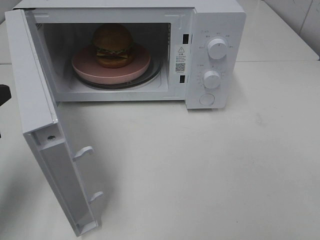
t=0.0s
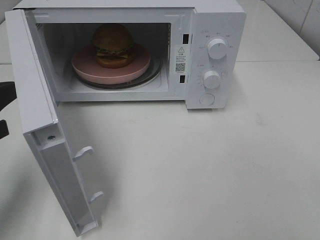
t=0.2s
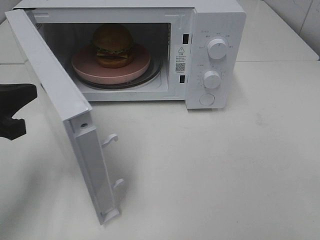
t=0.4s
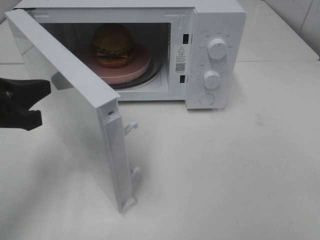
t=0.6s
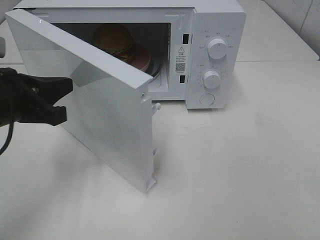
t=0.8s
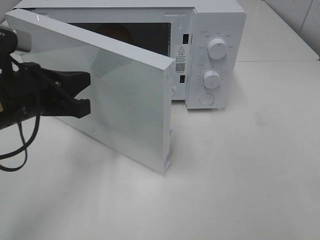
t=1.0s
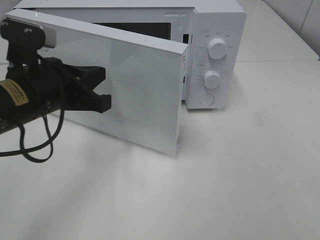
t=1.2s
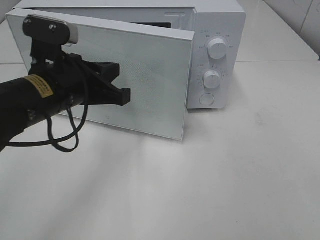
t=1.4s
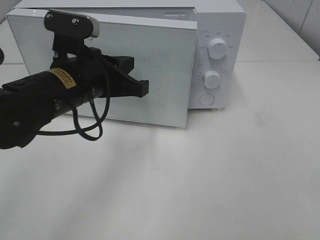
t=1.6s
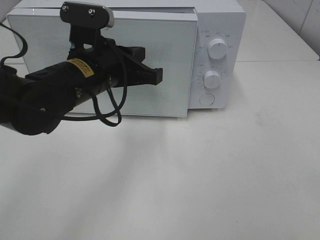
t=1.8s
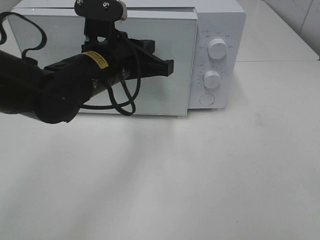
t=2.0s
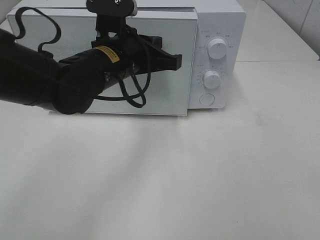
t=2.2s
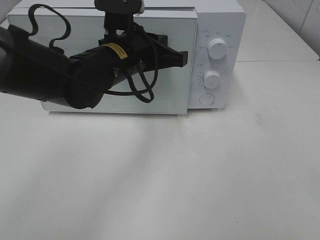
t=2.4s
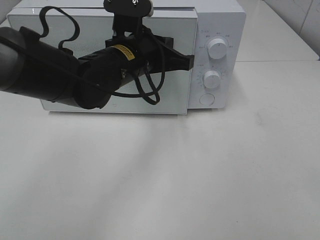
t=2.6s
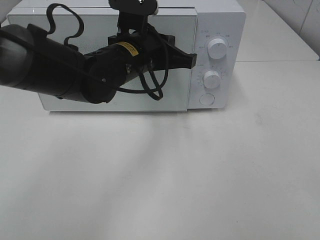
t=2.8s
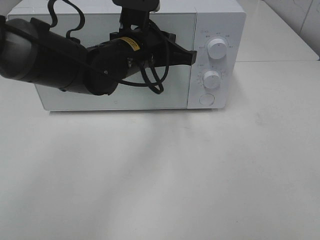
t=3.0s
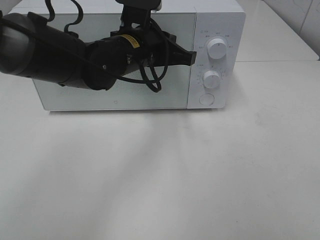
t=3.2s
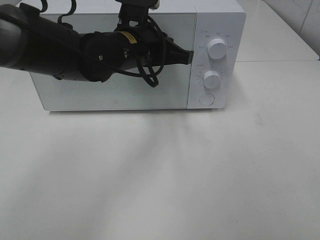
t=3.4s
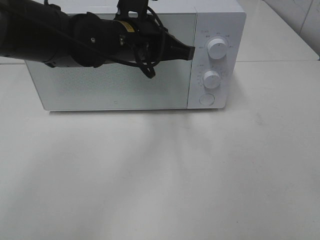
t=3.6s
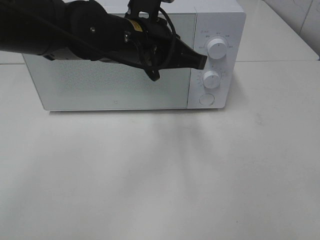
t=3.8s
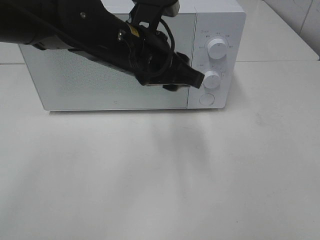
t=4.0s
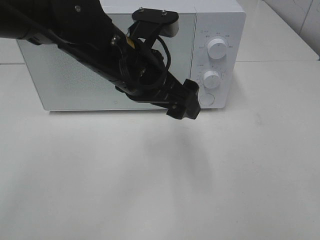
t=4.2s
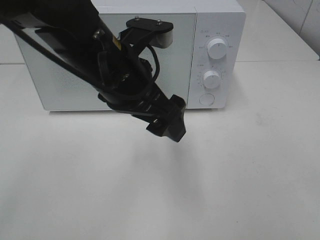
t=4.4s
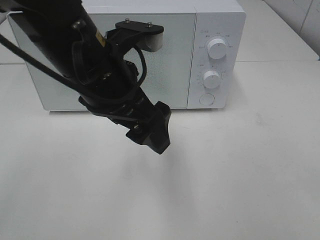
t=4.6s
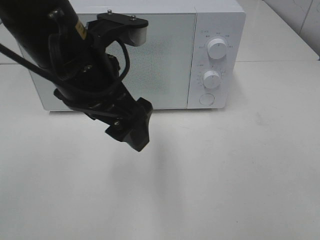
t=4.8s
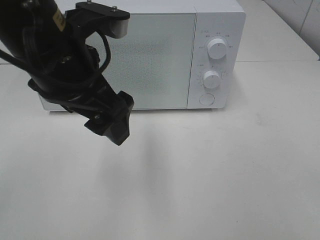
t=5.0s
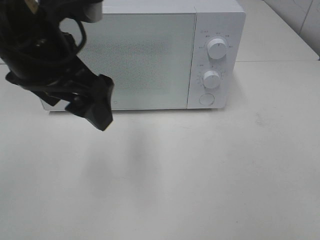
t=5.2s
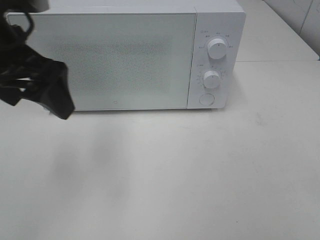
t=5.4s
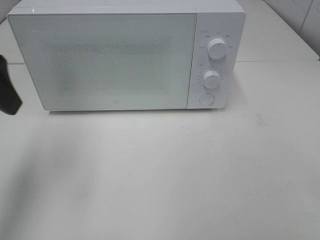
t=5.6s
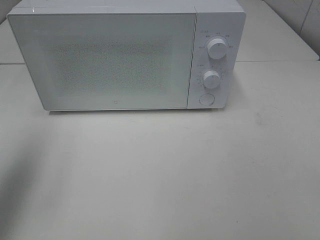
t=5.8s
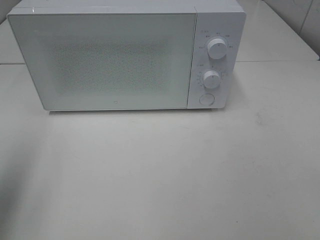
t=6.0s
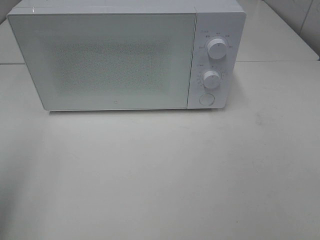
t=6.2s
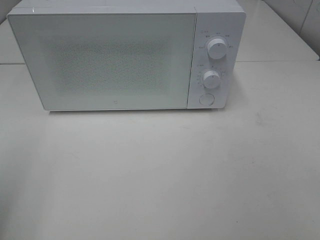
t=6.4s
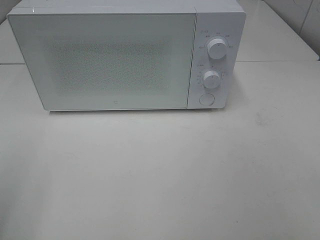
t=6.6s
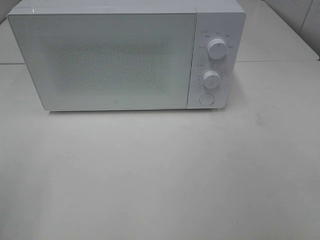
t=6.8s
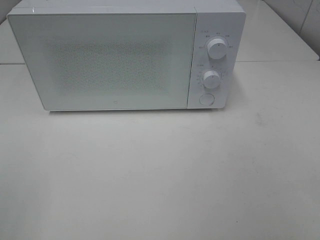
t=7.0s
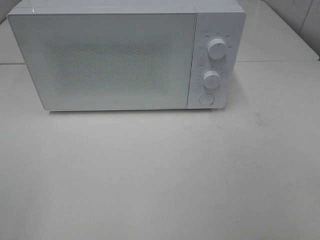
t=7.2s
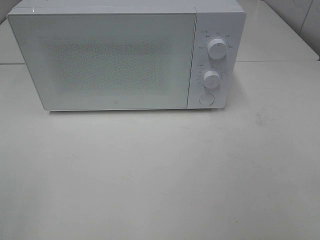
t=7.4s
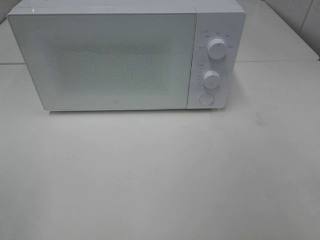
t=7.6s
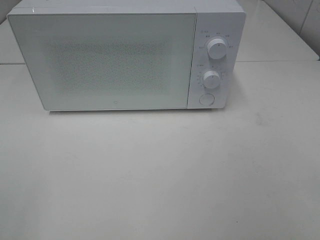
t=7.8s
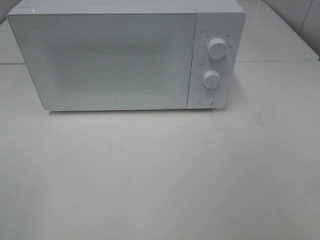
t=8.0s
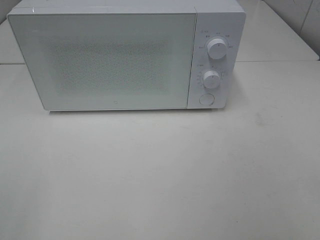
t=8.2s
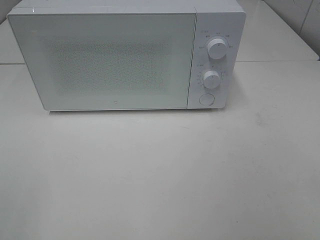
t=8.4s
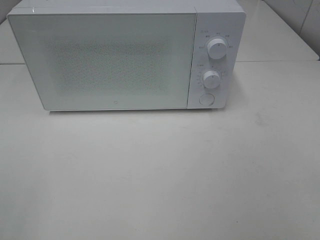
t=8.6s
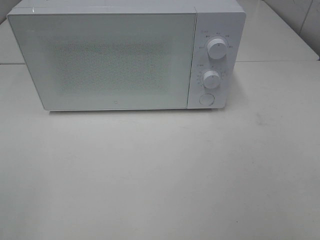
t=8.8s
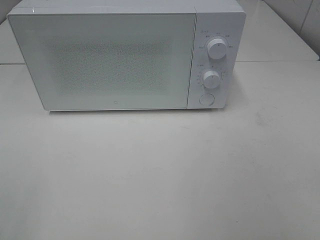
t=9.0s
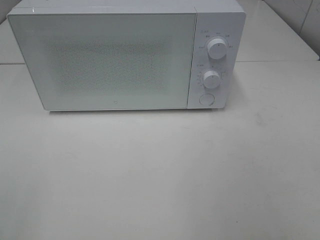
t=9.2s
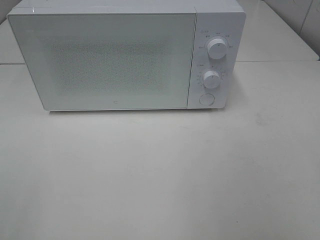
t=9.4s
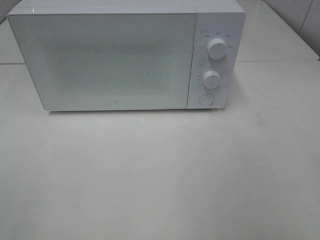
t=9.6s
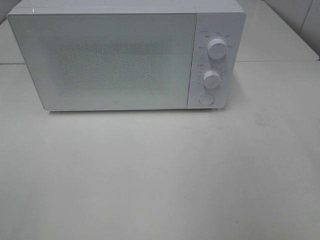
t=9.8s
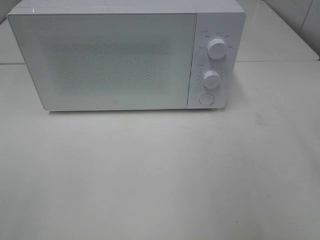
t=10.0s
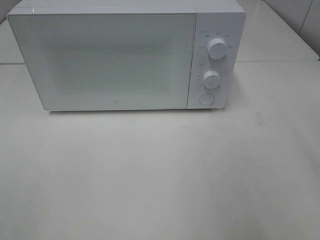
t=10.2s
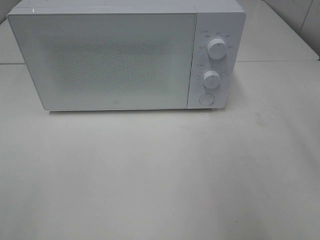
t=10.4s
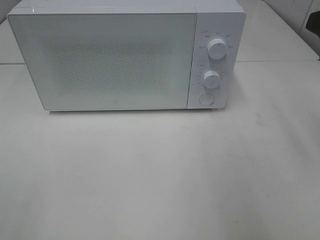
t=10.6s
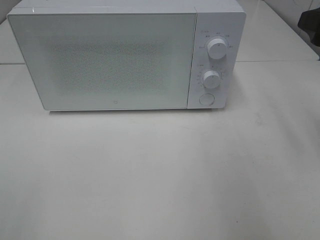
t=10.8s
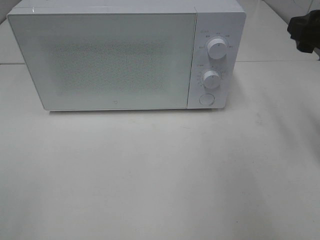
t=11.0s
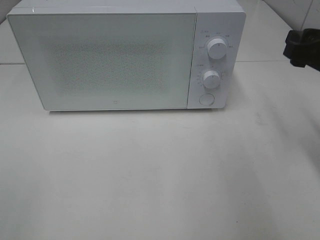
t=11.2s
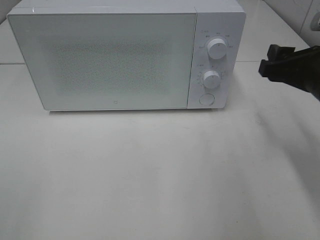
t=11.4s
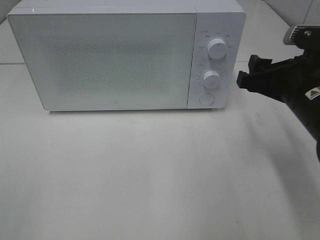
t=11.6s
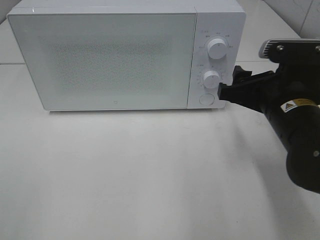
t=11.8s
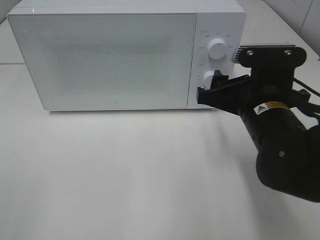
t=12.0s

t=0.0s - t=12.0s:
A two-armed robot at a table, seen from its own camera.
Task of the whole recording: Heat the burger.
Step, t=0.0s - t=3.6s: Left hand: close the microwave door.
t=0.0s - t=1.6s: The left gripper heads to the right and forward, covering approximately 20 cm.
t=1.6s - t=3.0s: The left gripper moves forward and to the right, approximately 10 cm.
t=3.0s - t=4.4s: The left gripper travels backward by approximately 10 cm, and opens up.
t=4.4s - t=6.0s: The left gripper goes about 25 cm to the left.
t=6.0s - t=7.6s: The left gripper heads backward, covering approximately 15 cm.
t=10.4s - t=12.0s: The right gripper moves downward and to the left, some 20 cm.

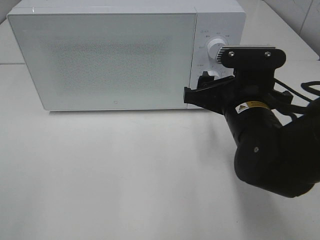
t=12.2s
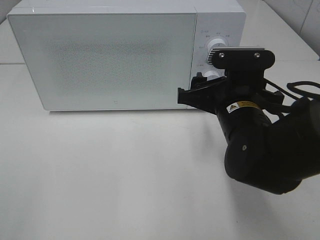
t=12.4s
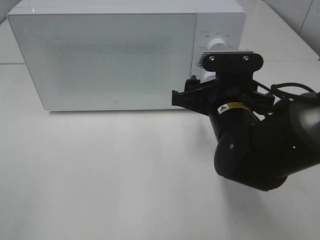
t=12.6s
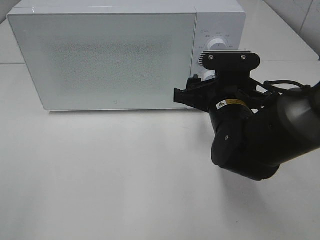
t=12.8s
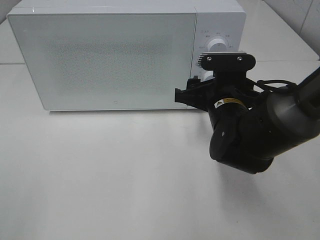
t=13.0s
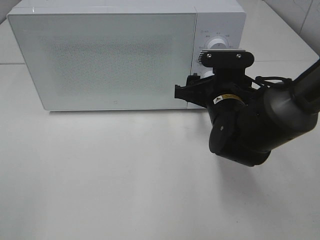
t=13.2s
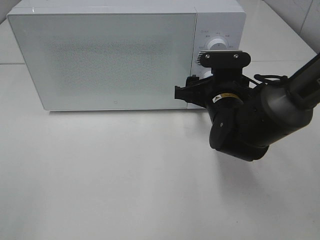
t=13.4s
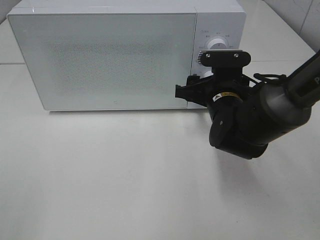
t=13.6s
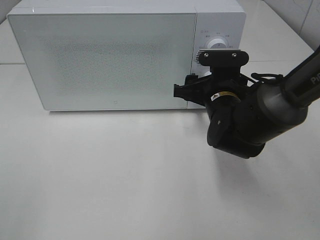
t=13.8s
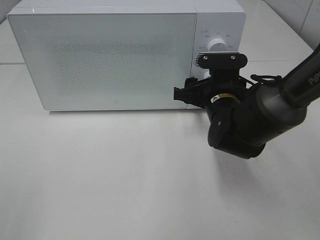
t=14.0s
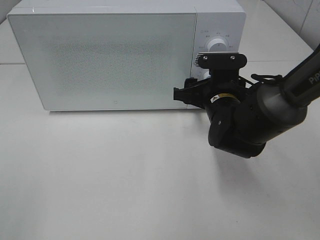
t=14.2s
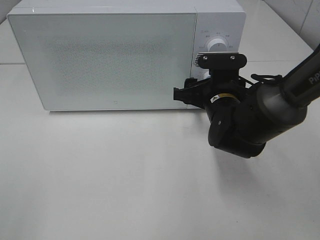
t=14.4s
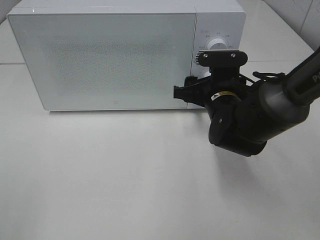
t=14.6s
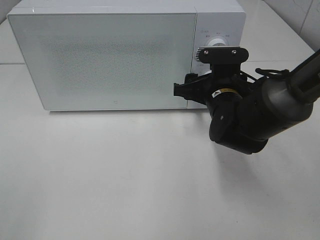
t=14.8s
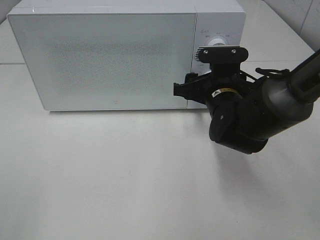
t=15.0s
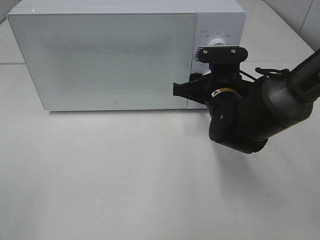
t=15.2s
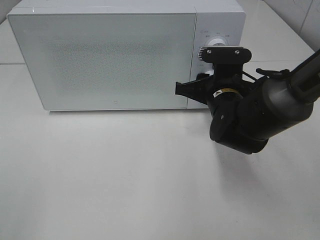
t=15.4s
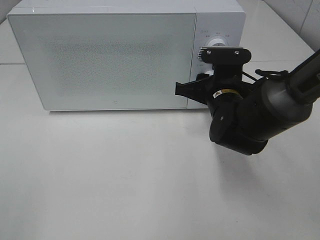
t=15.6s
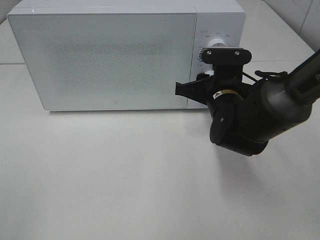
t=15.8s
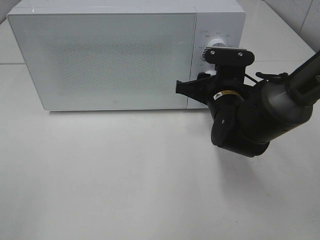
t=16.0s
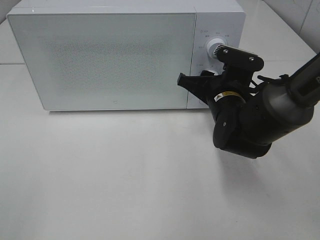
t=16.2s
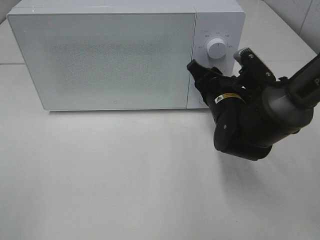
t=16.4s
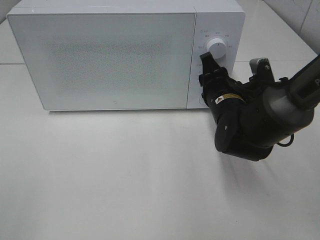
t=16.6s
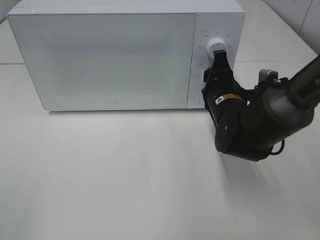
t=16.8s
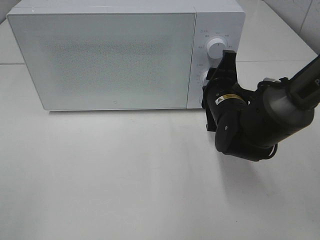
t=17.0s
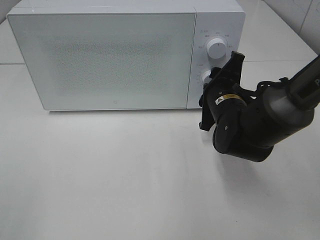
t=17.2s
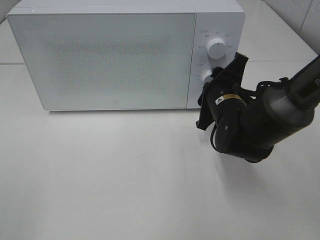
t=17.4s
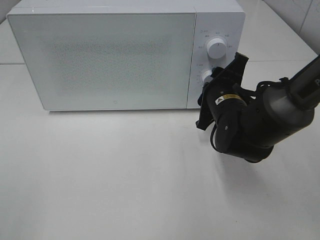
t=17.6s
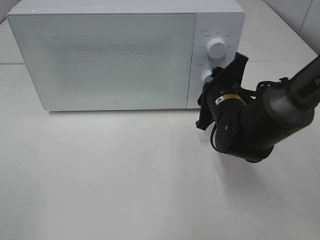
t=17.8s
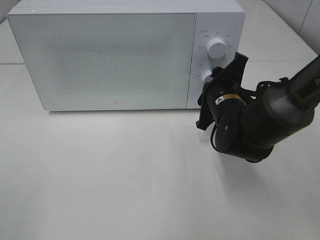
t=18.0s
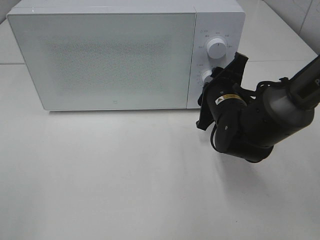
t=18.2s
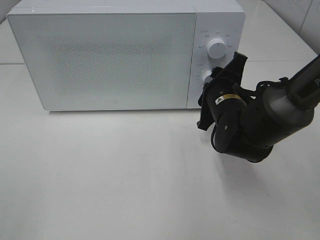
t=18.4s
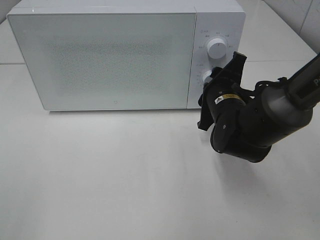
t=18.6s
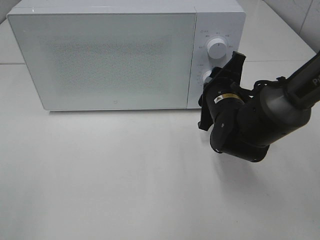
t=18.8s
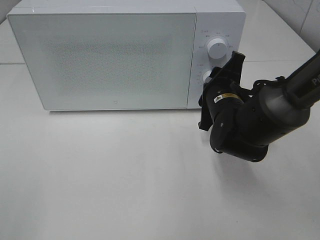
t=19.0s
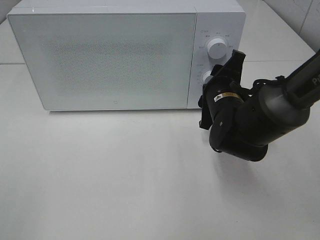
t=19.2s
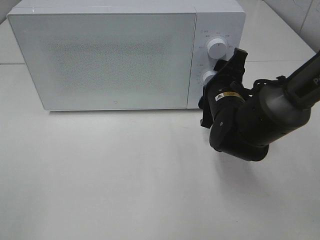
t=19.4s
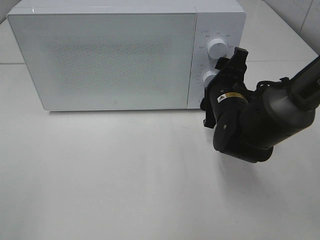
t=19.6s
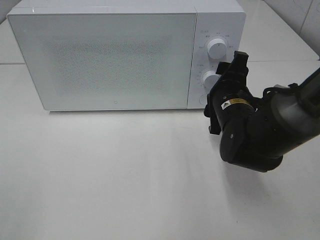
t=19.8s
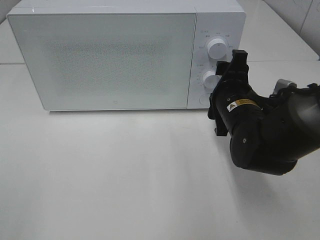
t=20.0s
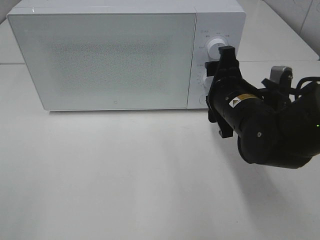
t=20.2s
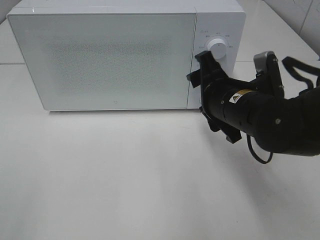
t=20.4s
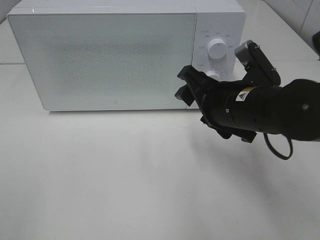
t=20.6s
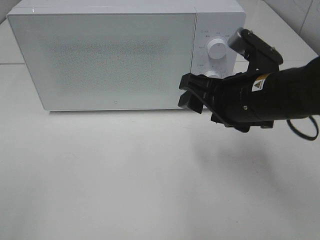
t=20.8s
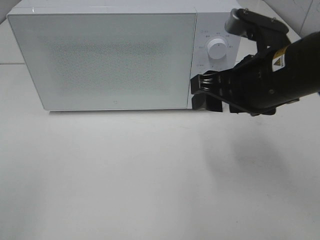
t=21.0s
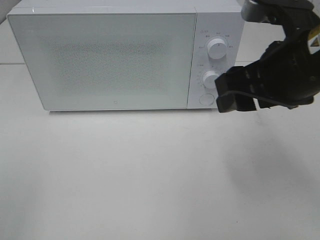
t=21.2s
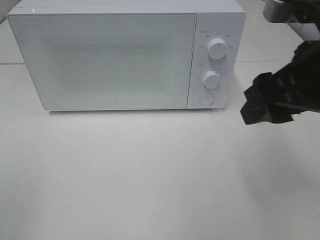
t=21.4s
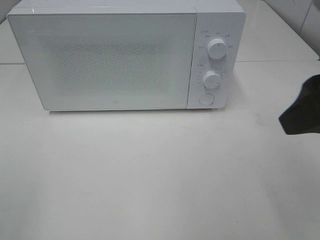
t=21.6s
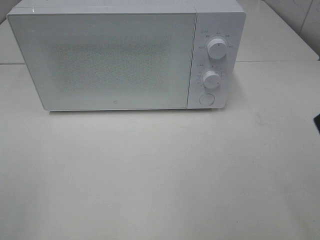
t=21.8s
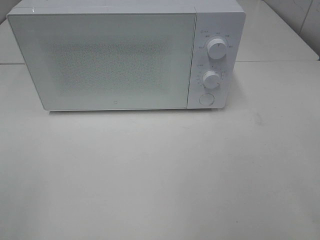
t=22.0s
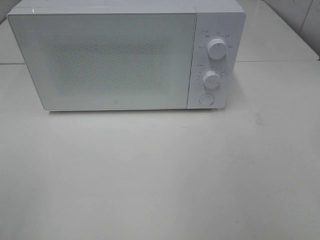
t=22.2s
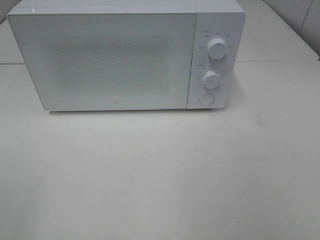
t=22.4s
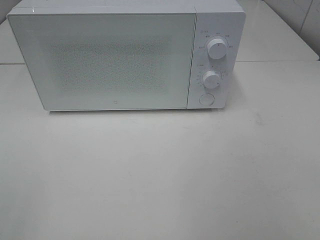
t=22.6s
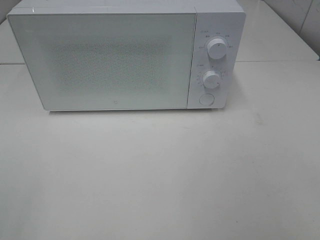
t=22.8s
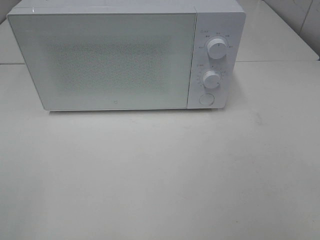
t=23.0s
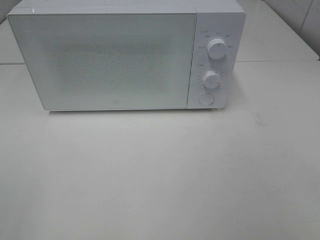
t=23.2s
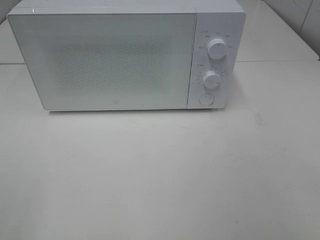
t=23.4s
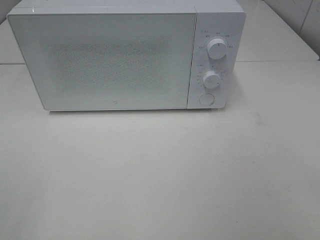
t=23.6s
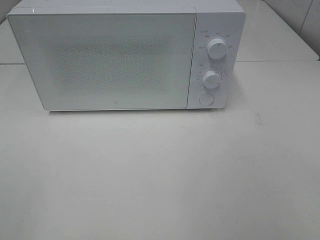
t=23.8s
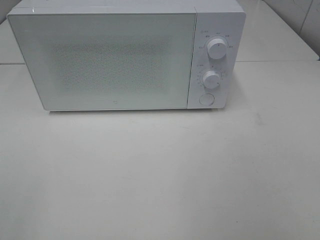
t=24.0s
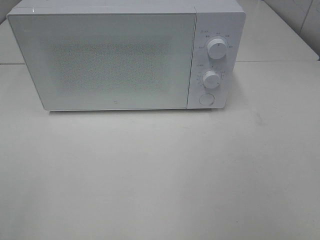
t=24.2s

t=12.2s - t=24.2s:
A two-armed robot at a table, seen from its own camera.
Task of the whole recording: Heat the burger.
Step, t=12.2s - t=19.6s: Right hand: twist timer button.
t=12.2s - t=13.8s: The right gripper is displaced forward by roughly 10 cm.
t=13.8s - t=15.2s: Both grippers stay put.
t=18.2s - t=19.8s: There are only small adjustments of the grippers.
t=19.8s - t=21.2s: The right gripper travels upward and backward by approximately 20 cm.
t=21.2s - t=22.6s: The right gripper moves backward and to the right, some 25 cm.
